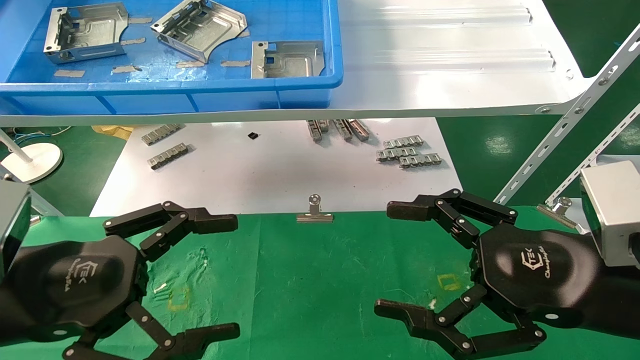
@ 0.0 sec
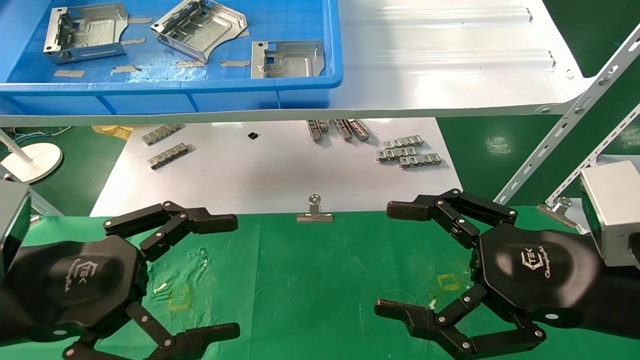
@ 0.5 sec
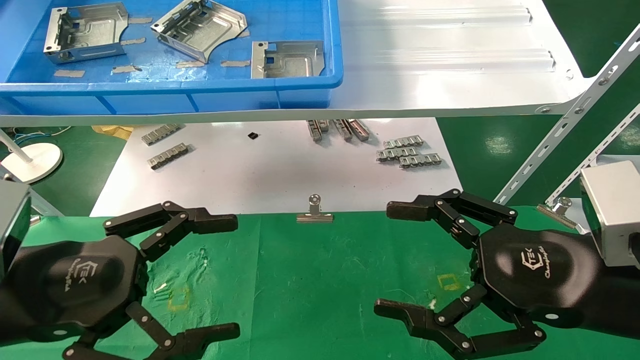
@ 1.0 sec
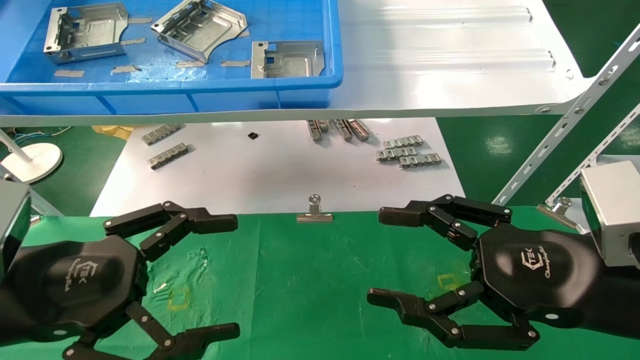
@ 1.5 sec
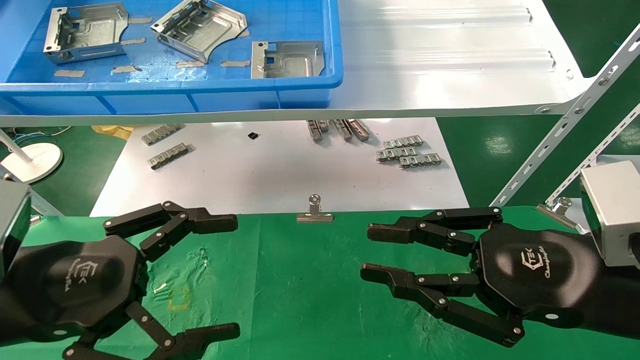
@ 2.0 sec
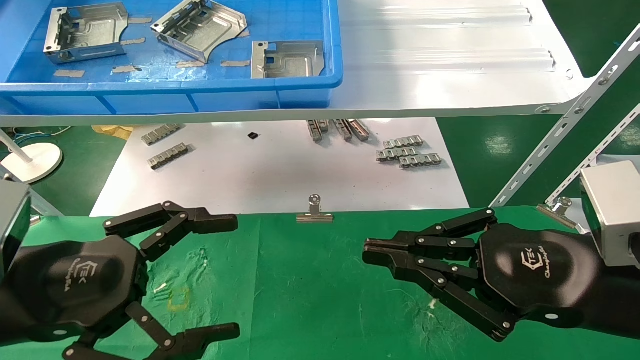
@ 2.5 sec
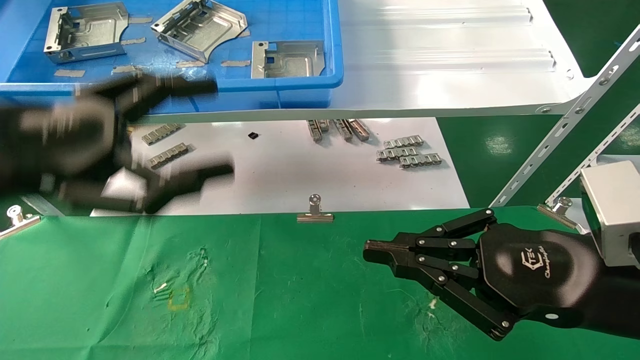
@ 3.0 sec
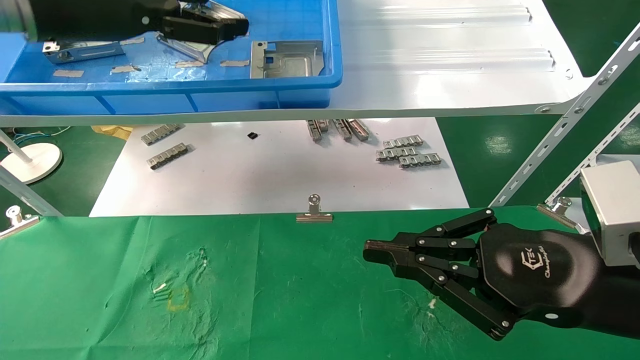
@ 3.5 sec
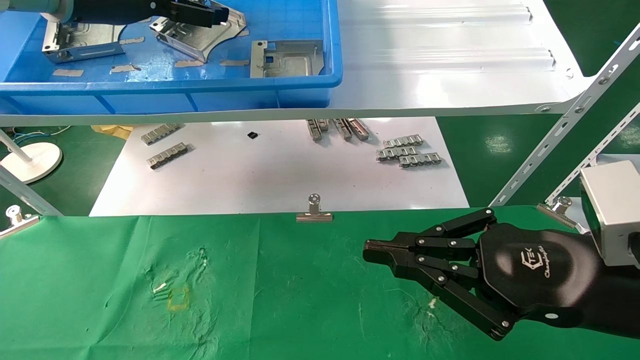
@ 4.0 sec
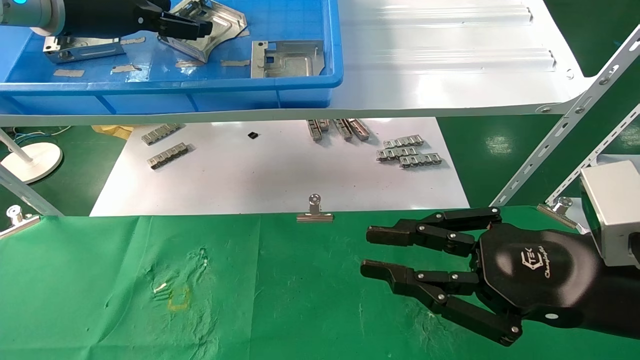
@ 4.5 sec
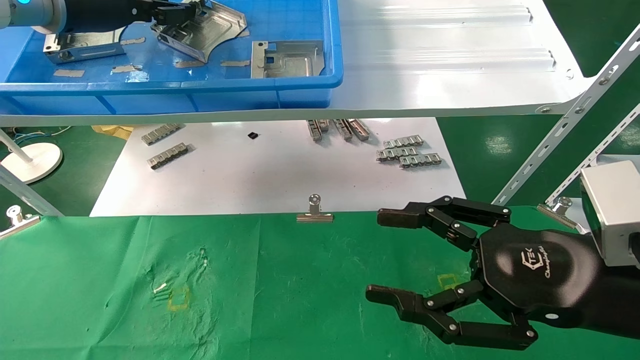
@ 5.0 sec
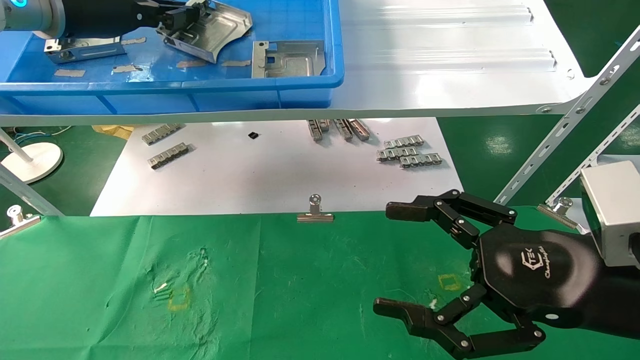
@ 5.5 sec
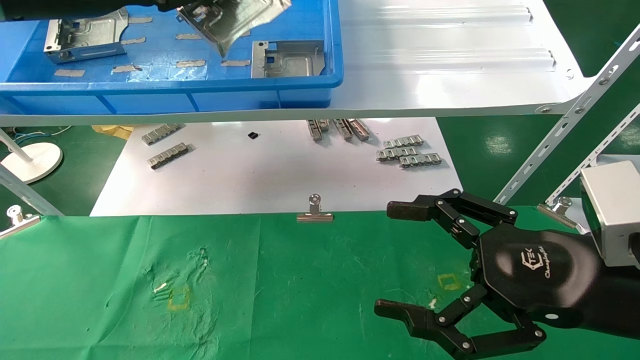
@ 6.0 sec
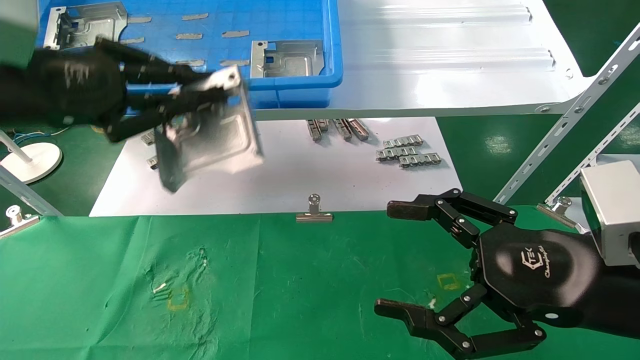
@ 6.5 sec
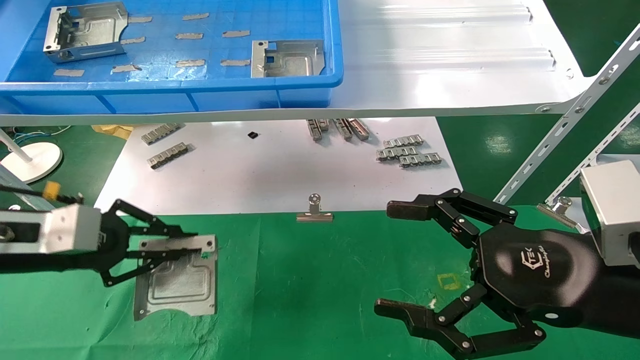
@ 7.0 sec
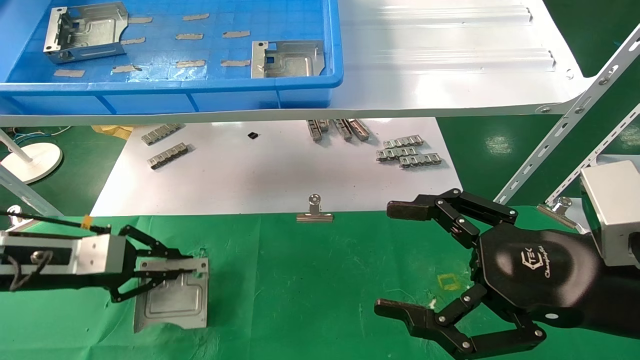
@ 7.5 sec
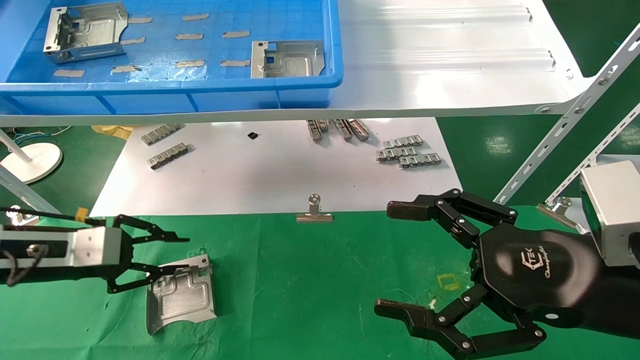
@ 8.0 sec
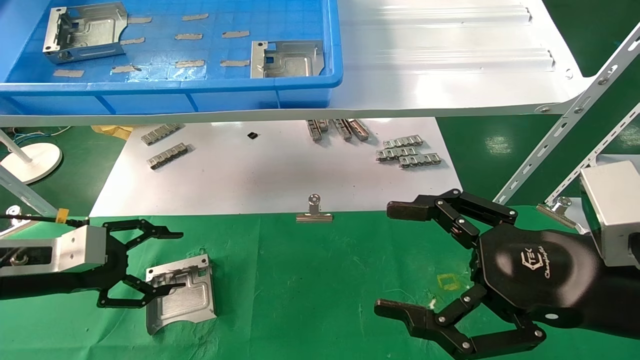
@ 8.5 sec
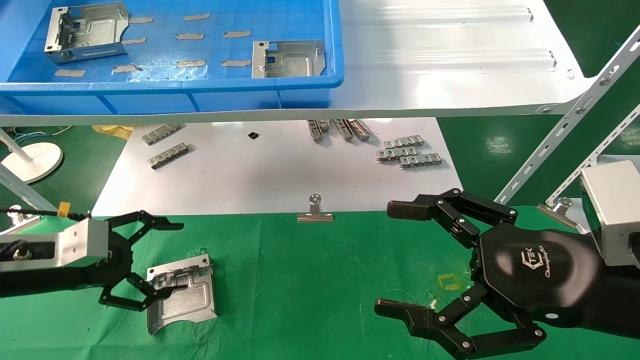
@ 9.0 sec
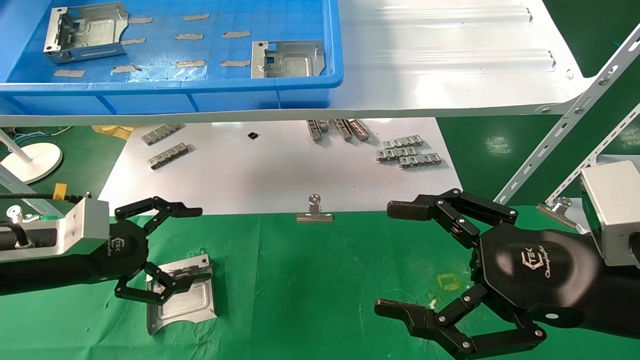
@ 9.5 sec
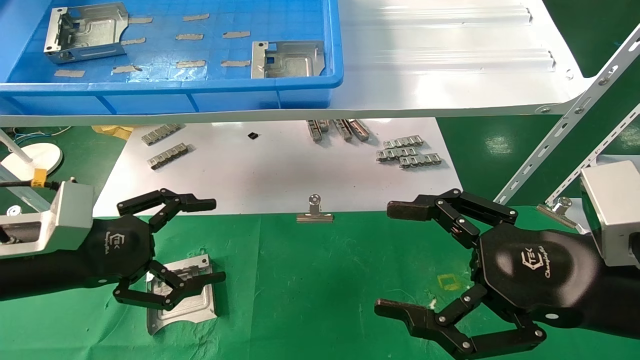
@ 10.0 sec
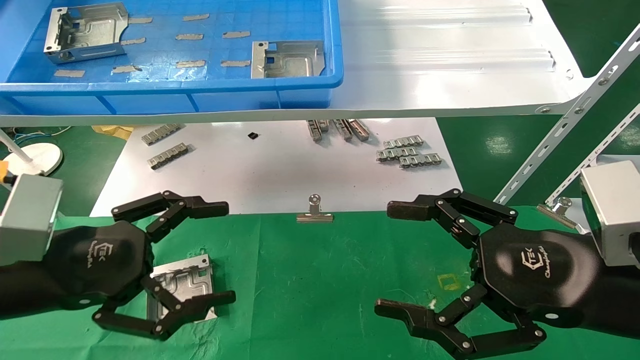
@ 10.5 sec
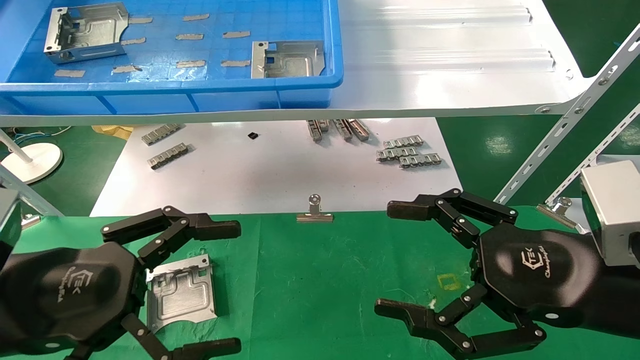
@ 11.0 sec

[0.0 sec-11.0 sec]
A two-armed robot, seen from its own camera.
Task of the whole recording: use the mechanical arm to pick up the parts and place them on the table.
Step, 2.0 sec to 5.0 sec: Pick up the hard drive bracket from the feeding area.
Step, 5.5 sec to 8.0 sec: Place the hard drive bracket into the box.
0.0 sec to 2.0 sec: The right gripper closes.
2.0 sec to 3.5 sec: The left gripper heads upward and forward, covering approximately 30 cm. Meanwhile the right gripper closes up.
3.5 sec to 5.5 sec: The left gripper ends up approximately 5 cm from where it was, and closes its fingers. Meanwhile the right gripper opens up.
5.5 sec to 7.5 sec: The left gripper is displaced downward by roughly 30 cm.
7.5 sec to 9.0 sec: The left gripper opens its fingers.
9.0 sec to 11.0 sec: The left gripper is displaced backward and to the right by roughly 15 cm.

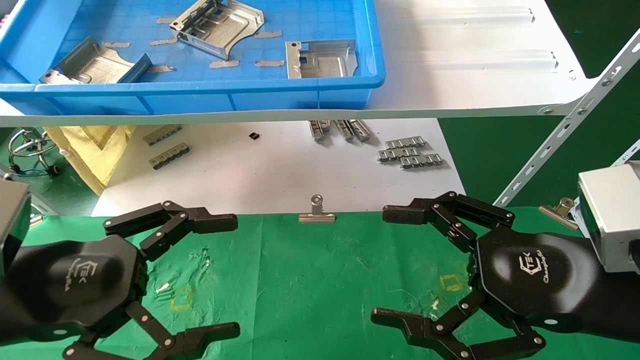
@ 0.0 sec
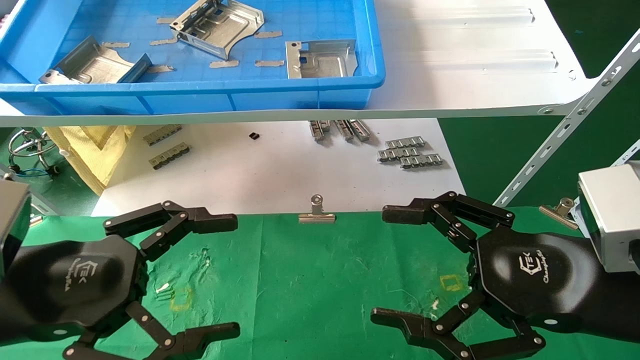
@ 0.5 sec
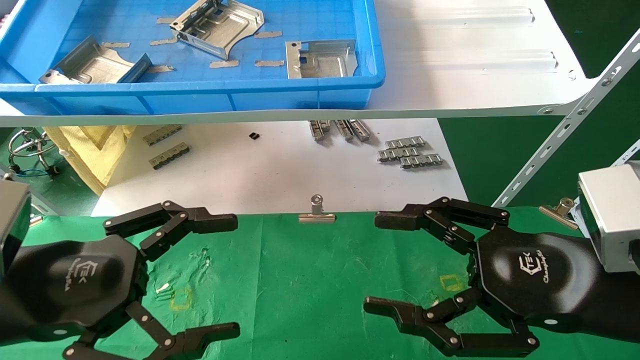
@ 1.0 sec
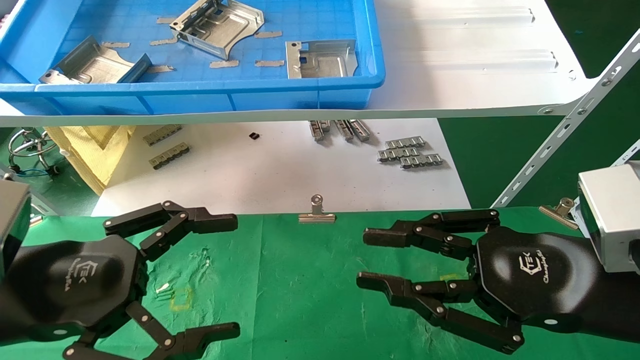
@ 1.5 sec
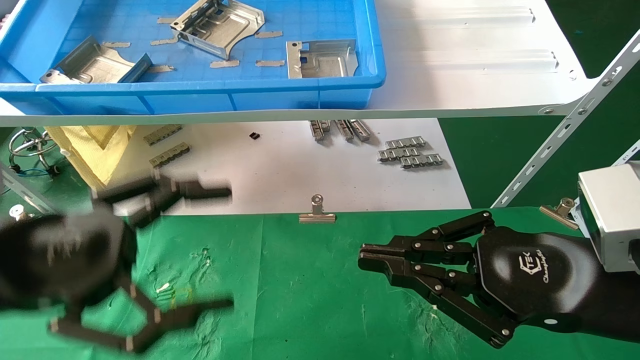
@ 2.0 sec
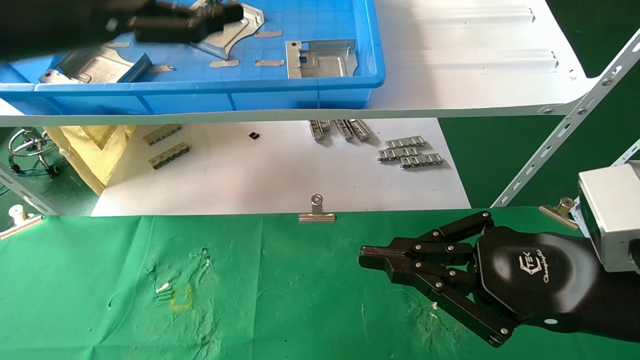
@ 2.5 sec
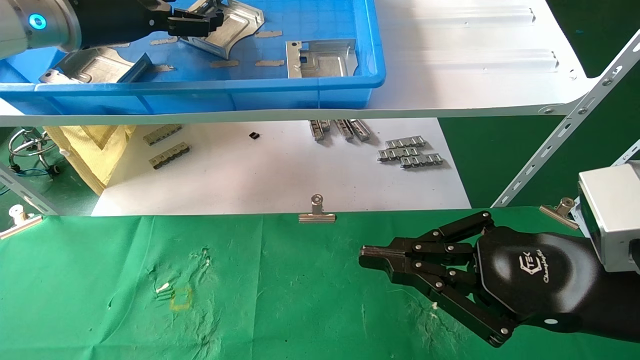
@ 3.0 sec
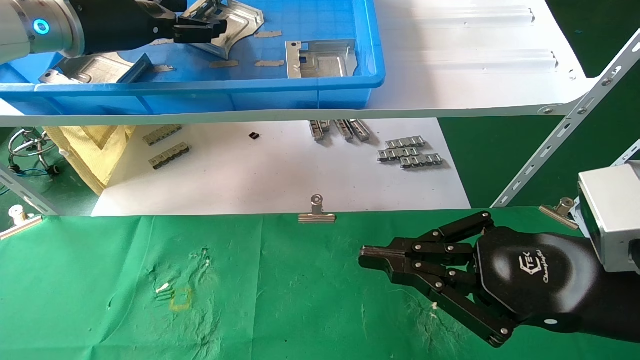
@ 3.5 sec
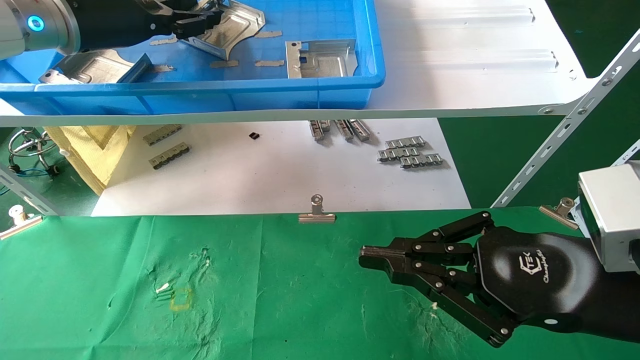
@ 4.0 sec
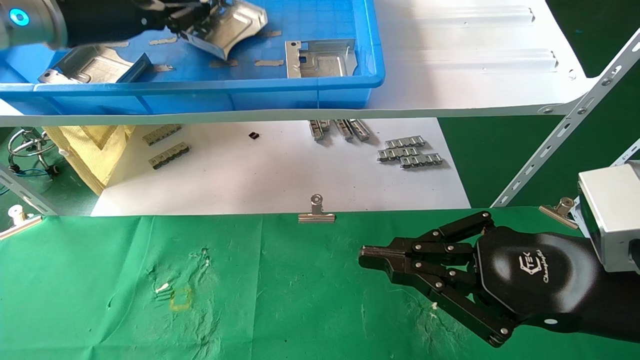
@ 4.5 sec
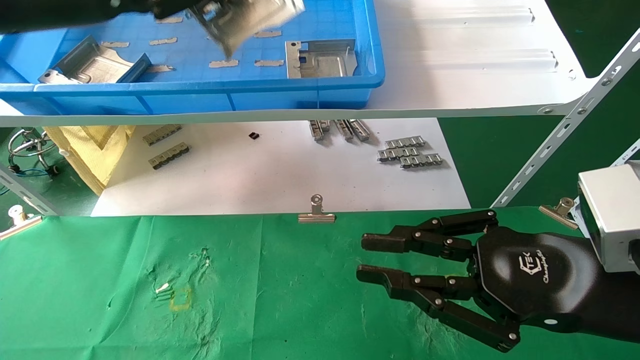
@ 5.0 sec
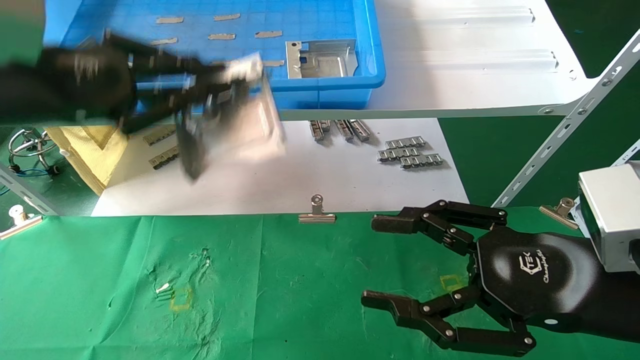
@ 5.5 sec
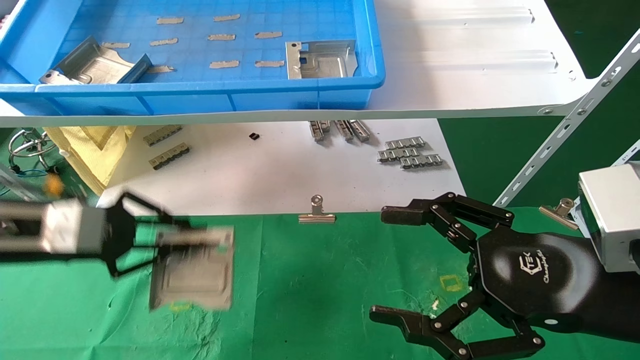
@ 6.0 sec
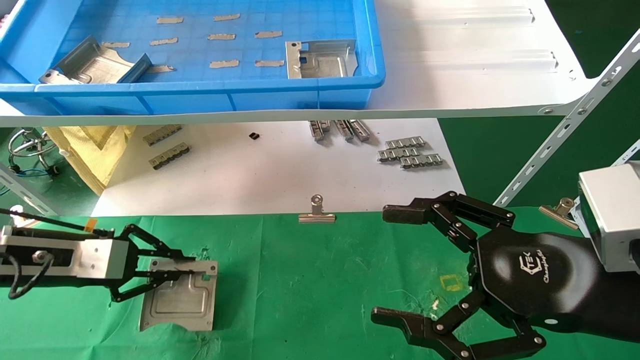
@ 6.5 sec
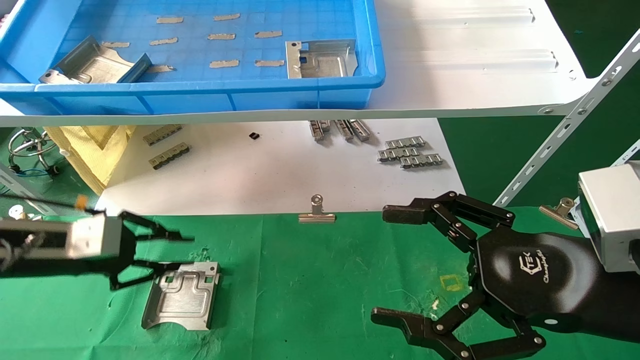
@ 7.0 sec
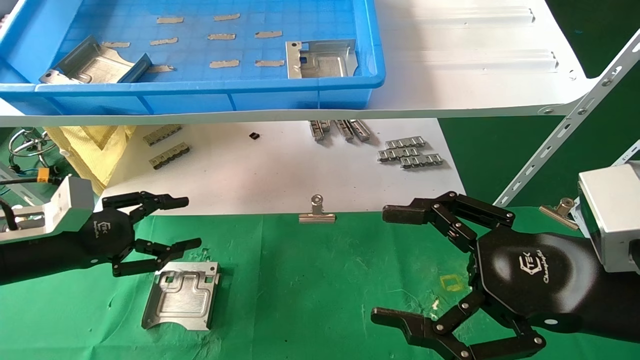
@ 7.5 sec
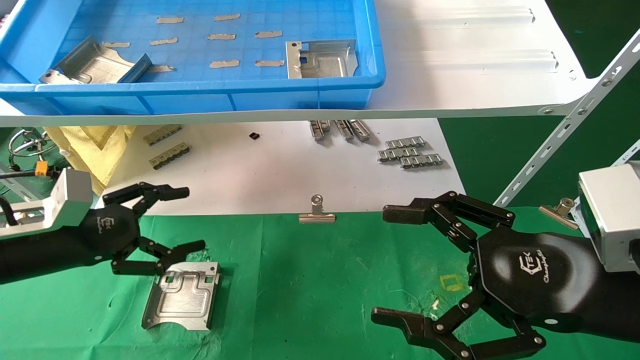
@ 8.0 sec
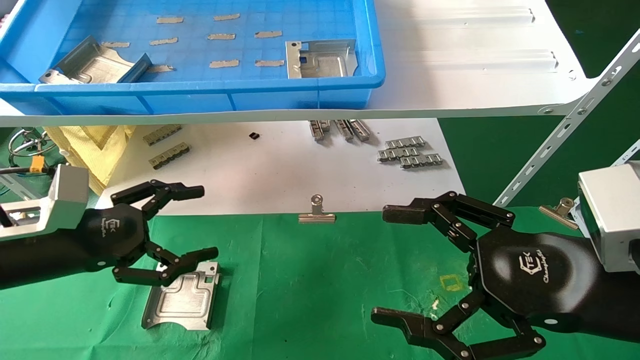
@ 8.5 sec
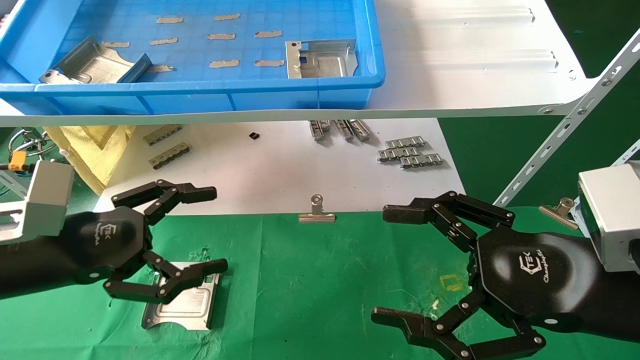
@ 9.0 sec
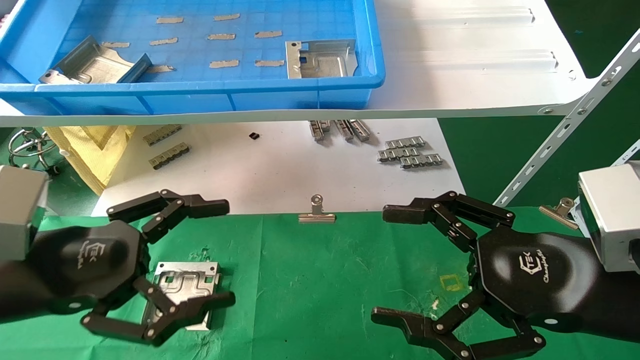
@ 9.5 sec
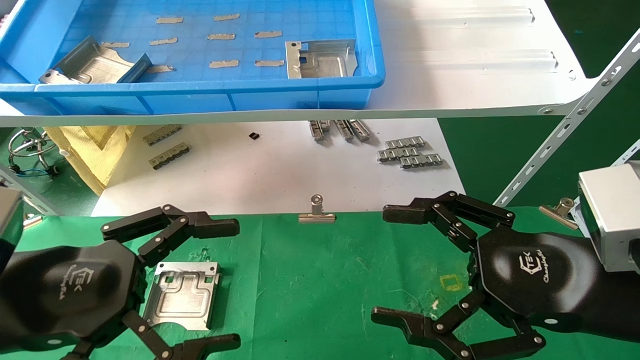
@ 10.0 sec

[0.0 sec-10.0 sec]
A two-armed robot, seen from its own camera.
Task of the whole recording: use the mechanical arm to pick up the parts and place them on the table.
Step, 2.0 sec to 4.0 sec: Pick up the hard drive bracket from the feeding area.
Step, 4.5 sec to 7.0 sec: Place the hard drive bracket into the box.
0.0 sec to 2.0 sec: The left gripper heads upward, covering roughly 5 cm, while the right gripper closes.
2.0 sec to 4.0 sec: The left gripper heads forward and upward, covering roughly 25 cm, and closes.
4.0 sec to 6.0 sec: The right gripper opens up; the left gripper heads downward and backward, covering about 25 cm, and closes.
6.0 sec to 8.0 sec: The left gripper ends up approximately 5 cm from where it was, and opens up.
8.0 sec to 10.0 sec: The left gripper moves backward and to the right, about 15 cm.
